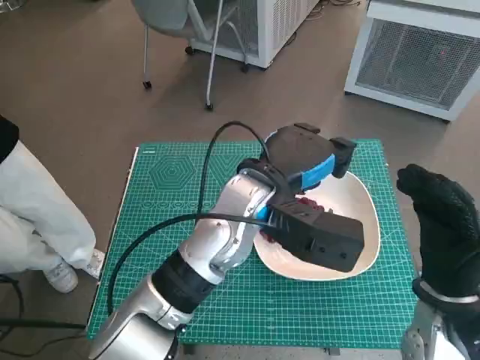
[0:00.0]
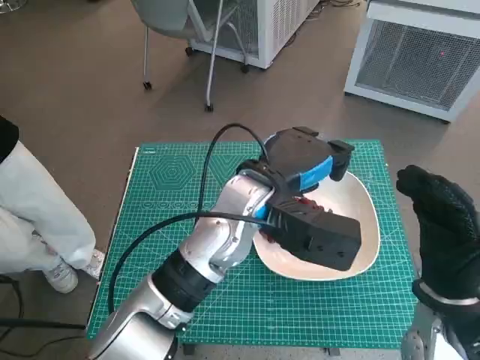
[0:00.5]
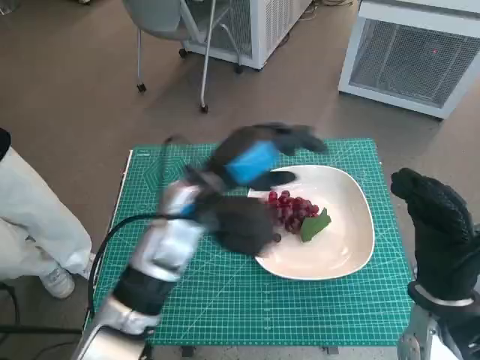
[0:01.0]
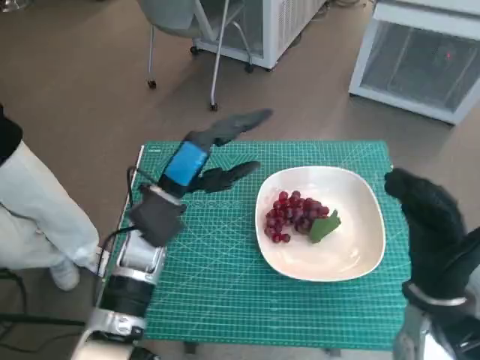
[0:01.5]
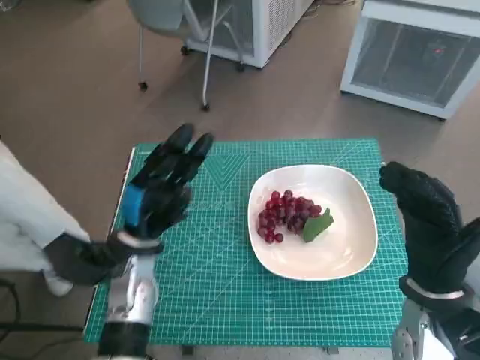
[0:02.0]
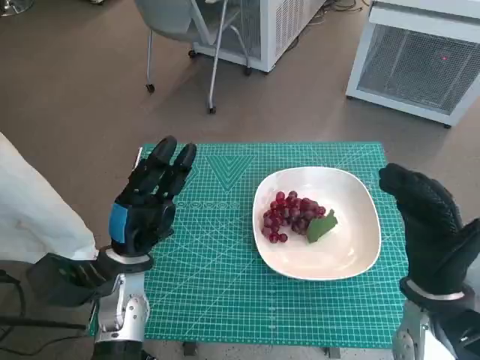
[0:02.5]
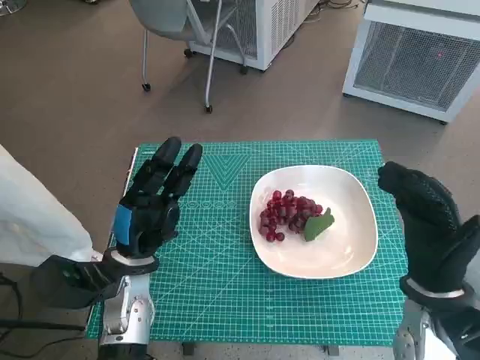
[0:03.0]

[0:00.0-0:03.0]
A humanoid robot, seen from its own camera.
Task of the whole recording: Pick up the grapes and put them on the plate.
0:00.0 to 0:01.5: The left hand shifts some 15 cm to the left and downward.
0:01.5 to 0:03.0: The left hand goes about 10 cm downward, backward and to the left.

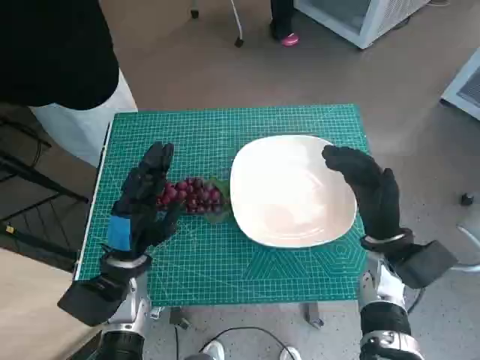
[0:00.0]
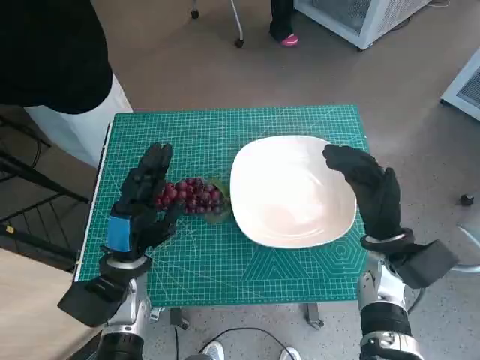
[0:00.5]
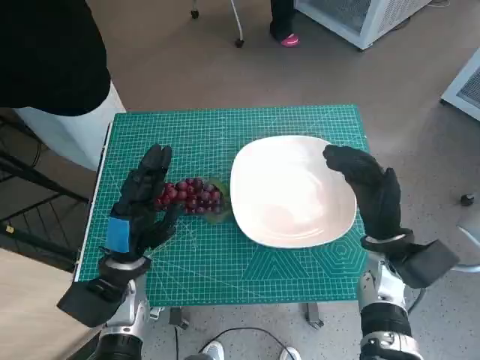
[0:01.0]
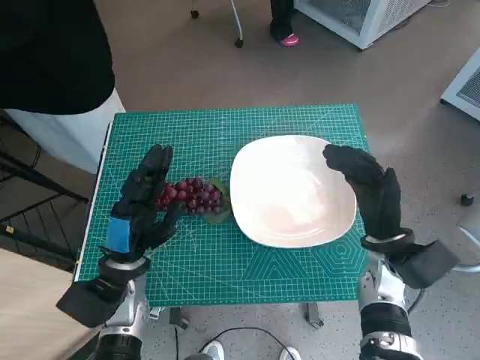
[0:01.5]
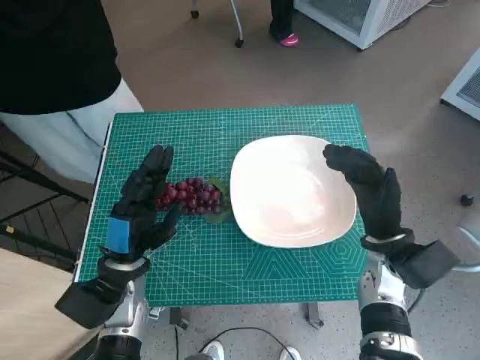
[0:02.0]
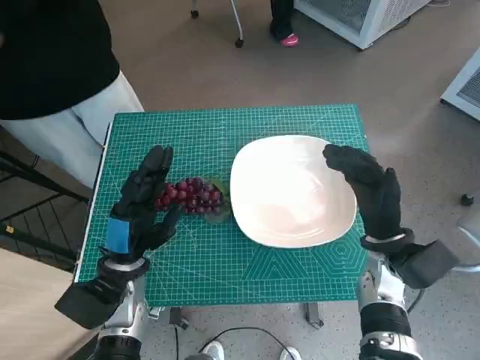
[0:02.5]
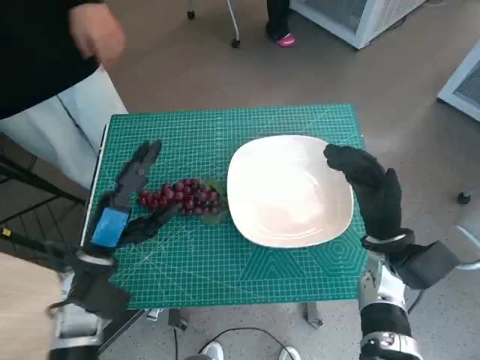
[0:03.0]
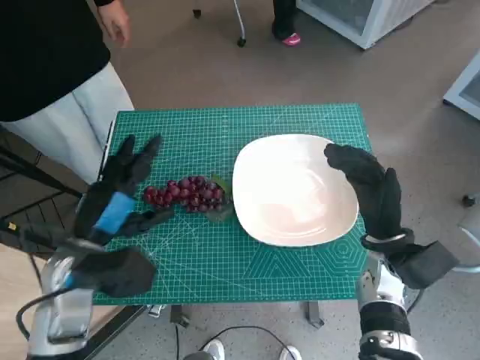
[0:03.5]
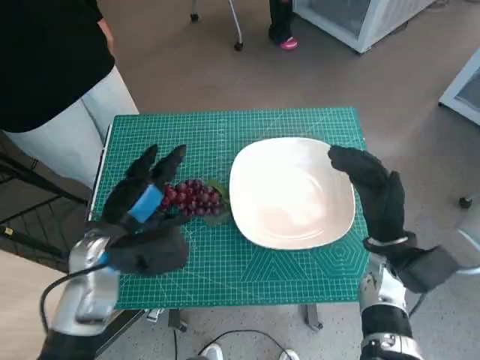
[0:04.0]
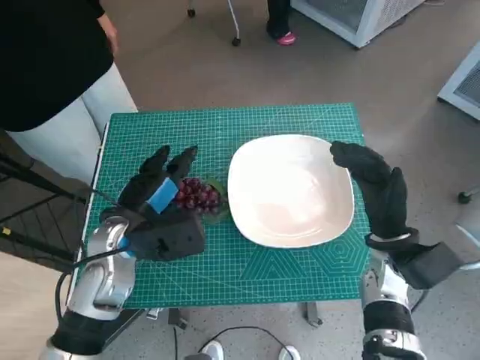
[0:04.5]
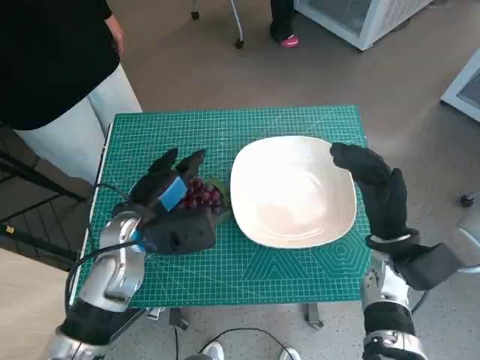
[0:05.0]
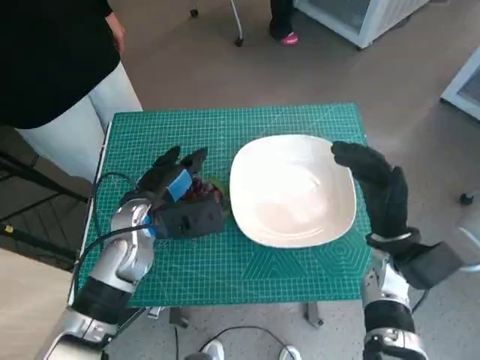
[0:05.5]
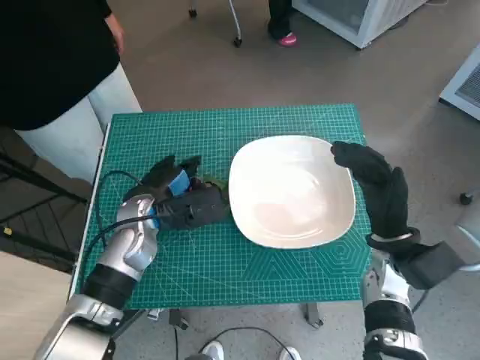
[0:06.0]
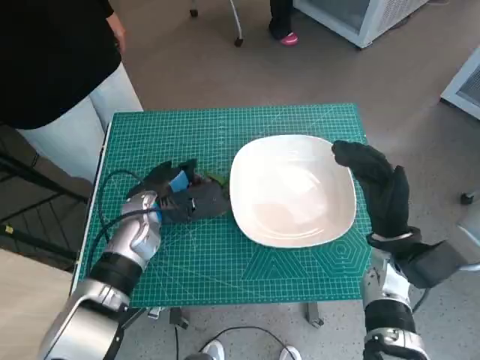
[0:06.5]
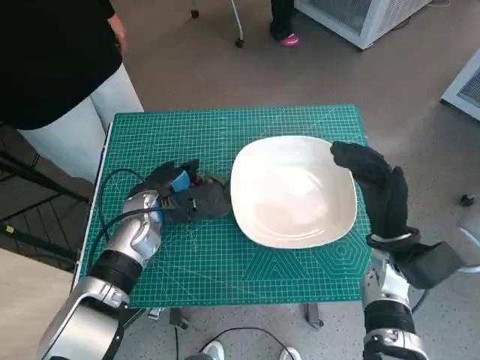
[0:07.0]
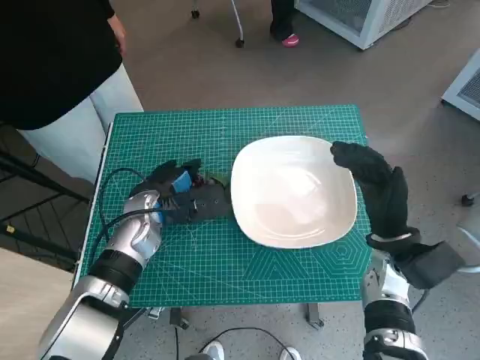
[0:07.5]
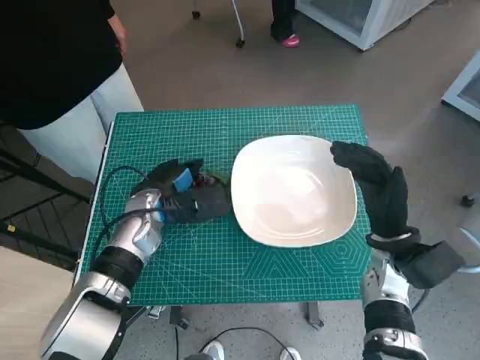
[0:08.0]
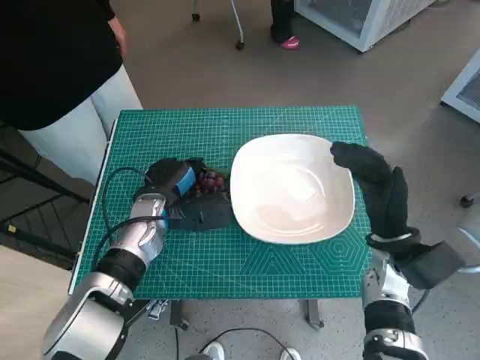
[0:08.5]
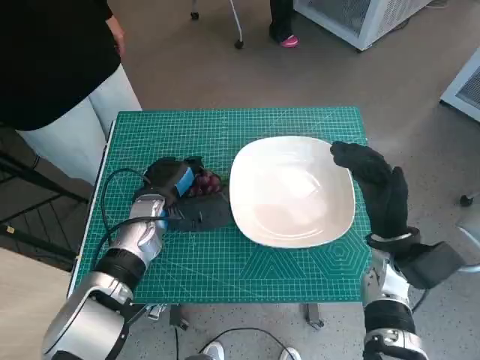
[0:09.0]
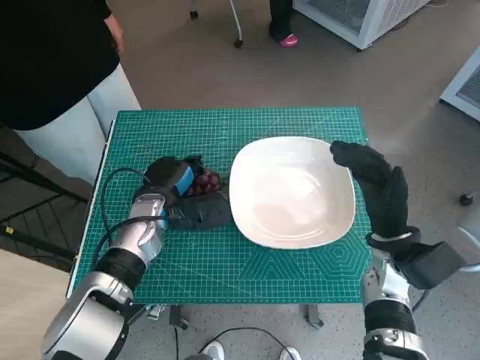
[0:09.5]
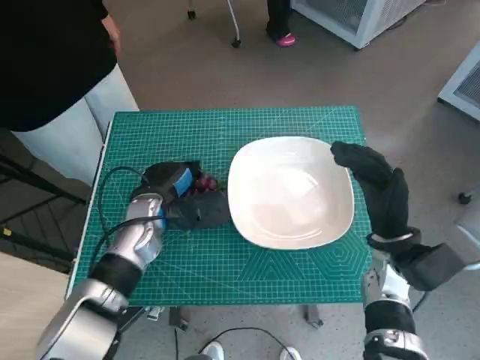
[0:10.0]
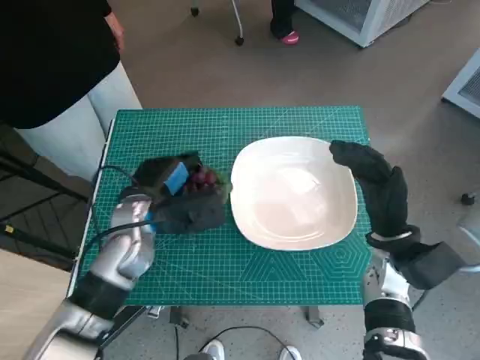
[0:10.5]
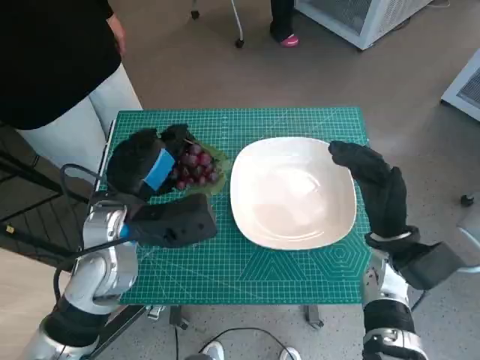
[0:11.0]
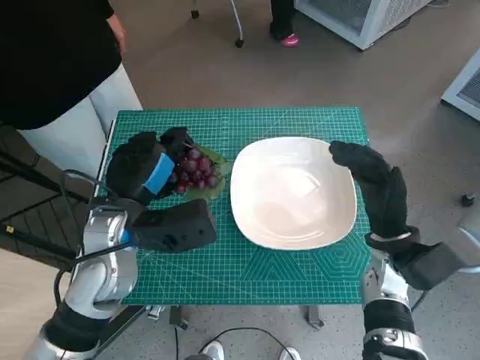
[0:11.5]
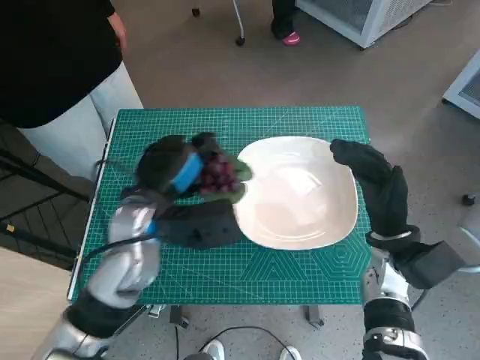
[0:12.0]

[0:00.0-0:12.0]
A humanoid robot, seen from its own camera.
Task of the whole recording: Pick up the grapes and put them on the plate.
Step, 0:00.0 to 0:09.0: Grasp the grapes with left hand.
0:02.0 to 0:04.0: The left hand moves upward, roughly 5 cm.
0:04.0 to 0:06.0: The left hand heads forward, covering about 5 cm.
0:06.0 to 0:10.0: The hands stay close to where they were, moving slightly.
0:10.0 to 0:12.0: The left hand shifts about 10 cm upward and backward.

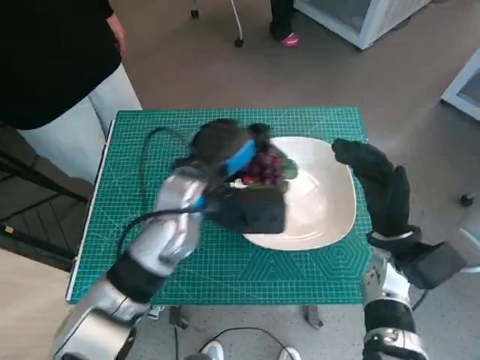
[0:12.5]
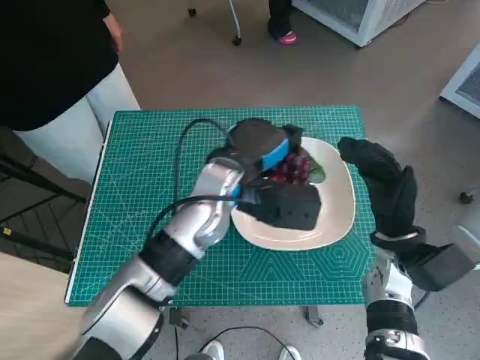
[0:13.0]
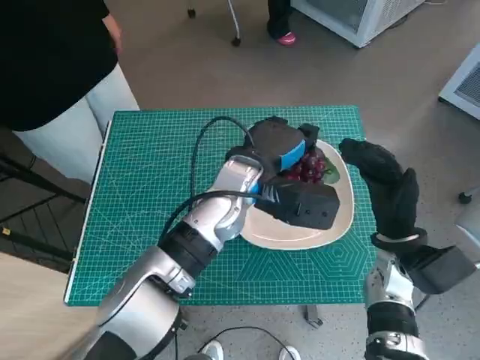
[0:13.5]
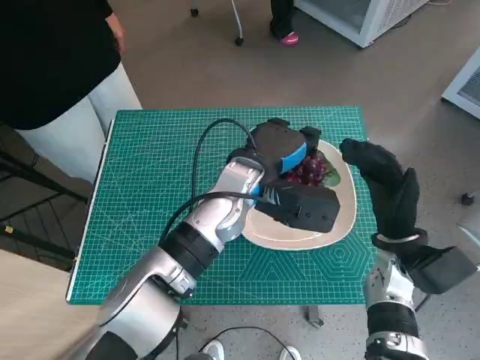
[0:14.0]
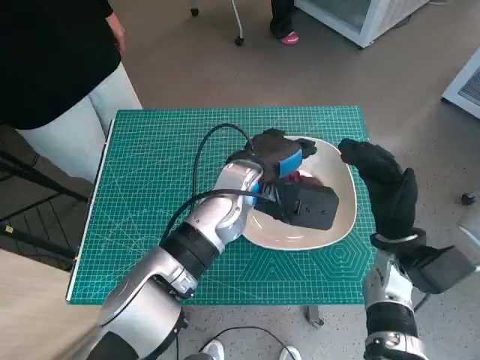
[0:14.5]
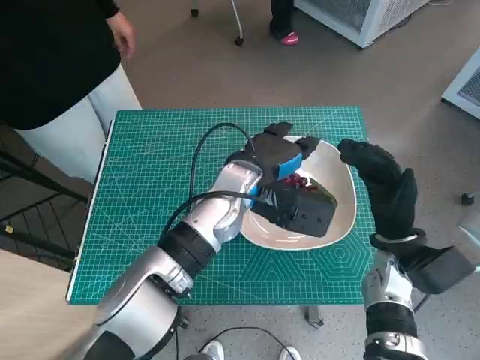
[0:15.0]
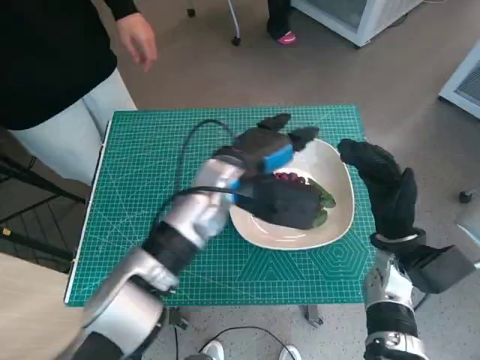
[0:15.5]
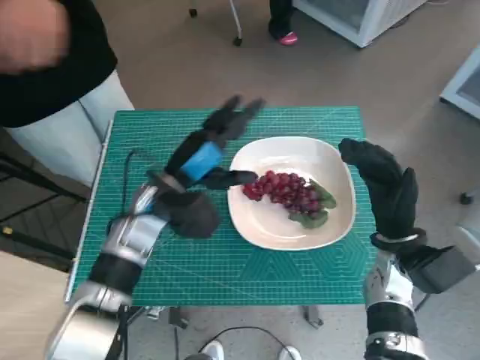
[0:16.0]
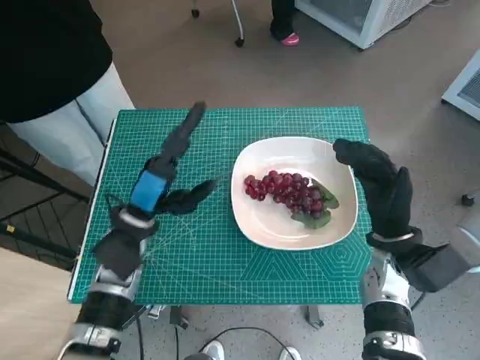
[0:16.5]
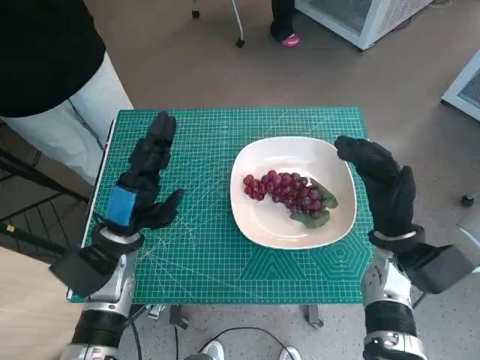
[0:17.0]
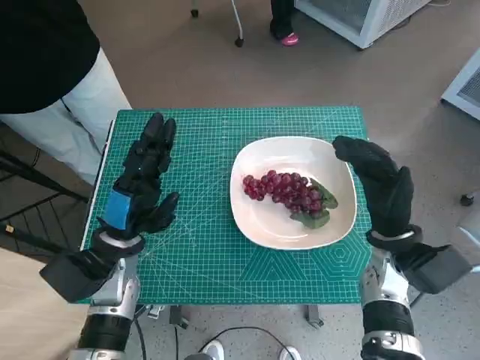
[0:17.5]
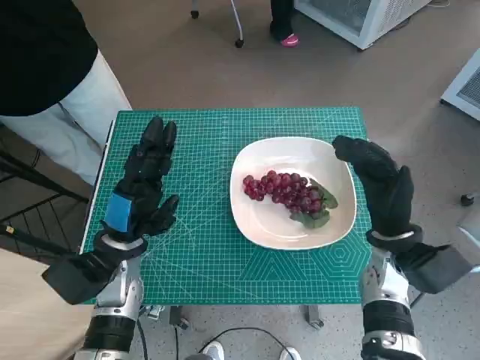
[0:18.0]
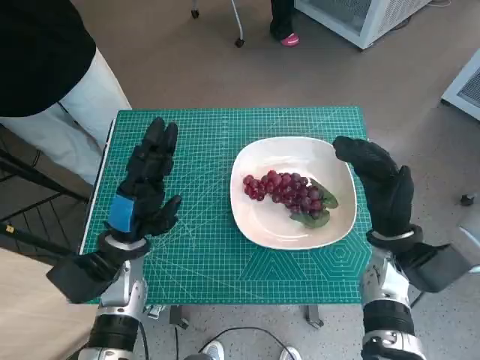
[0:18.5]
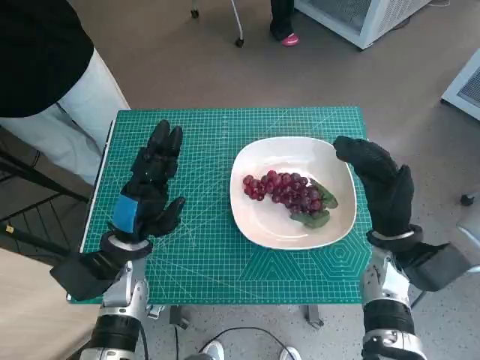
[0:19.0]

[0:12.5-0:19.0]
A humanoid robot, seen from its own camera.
Task of the whole recording: Pick up the grapes and put them on the plate.
Step, 0:12.5 to 0:15.0: Place the grapes in the plate with left hand.
0:12.5 to 0:14.5: The left hand travels to the right by about 5 cm.
0:14.5 to 0:17.0: The left hand heads to the left, backward and downward, covering some 20 cm.
0:17.0 to 0:19.0: There are only small adjustments of the hands.
